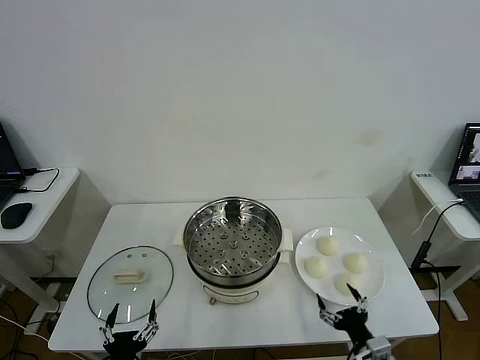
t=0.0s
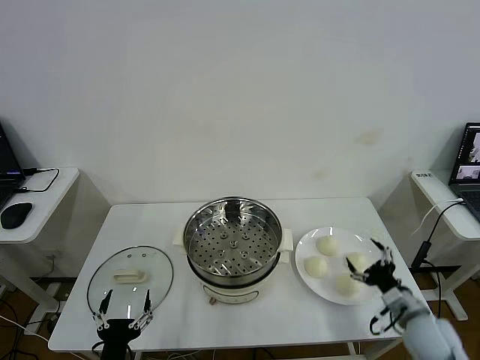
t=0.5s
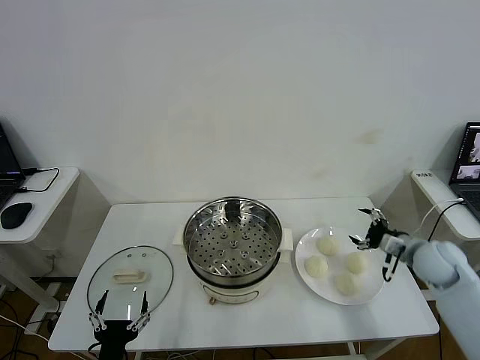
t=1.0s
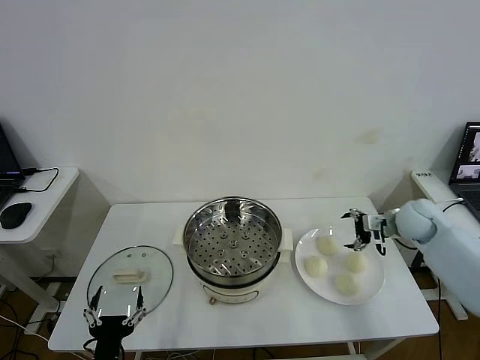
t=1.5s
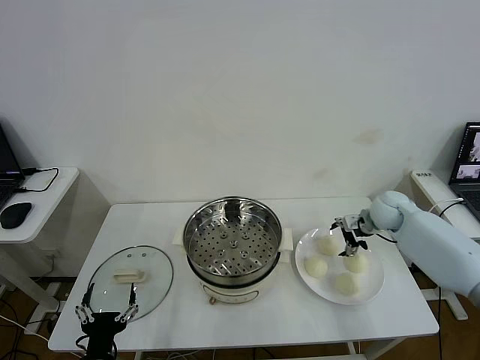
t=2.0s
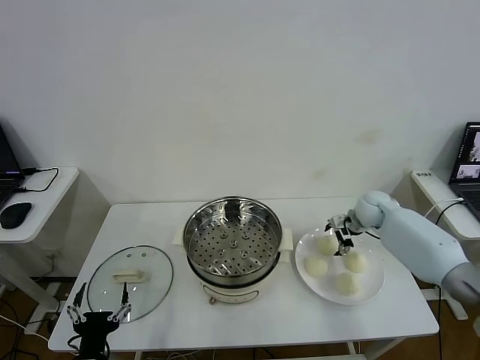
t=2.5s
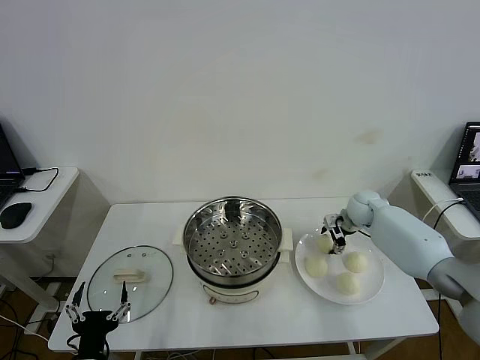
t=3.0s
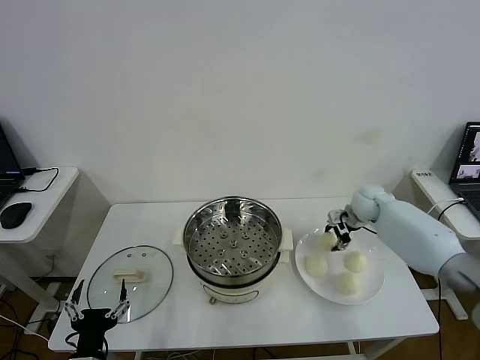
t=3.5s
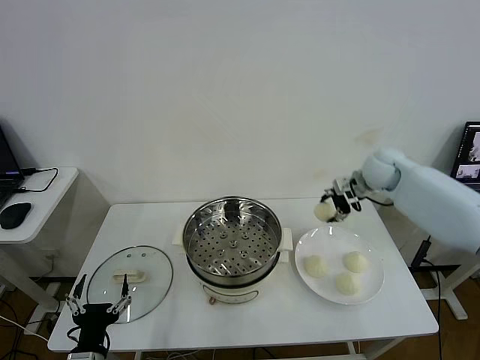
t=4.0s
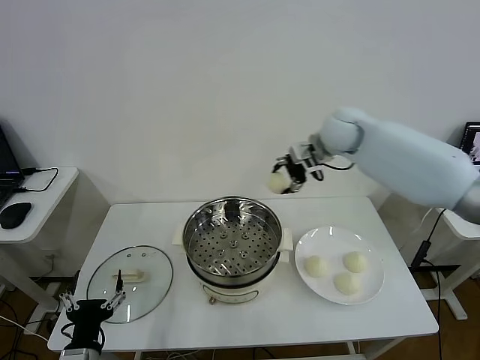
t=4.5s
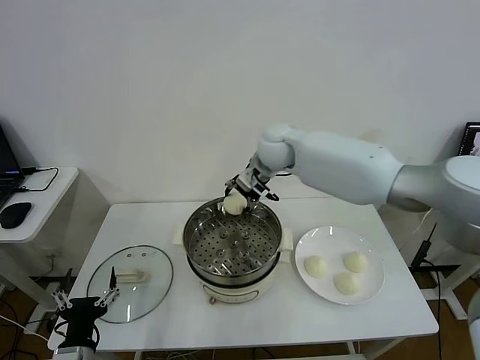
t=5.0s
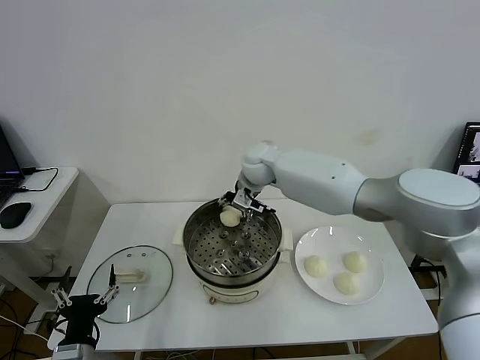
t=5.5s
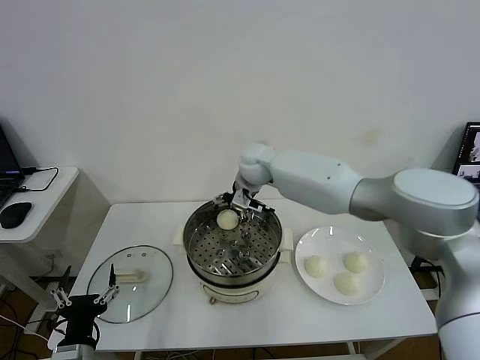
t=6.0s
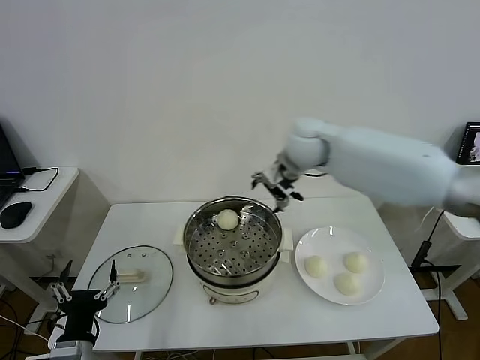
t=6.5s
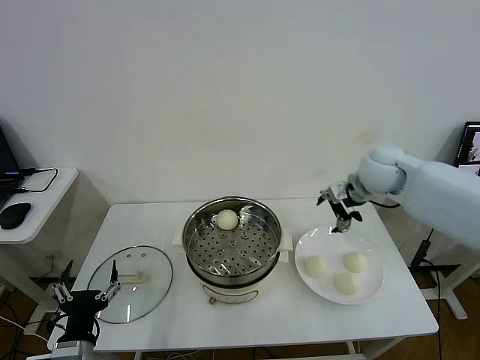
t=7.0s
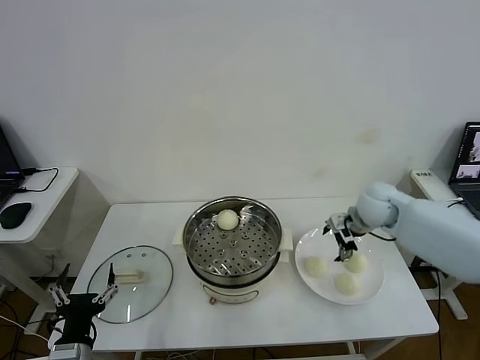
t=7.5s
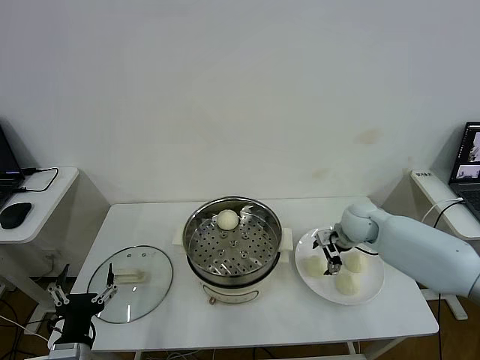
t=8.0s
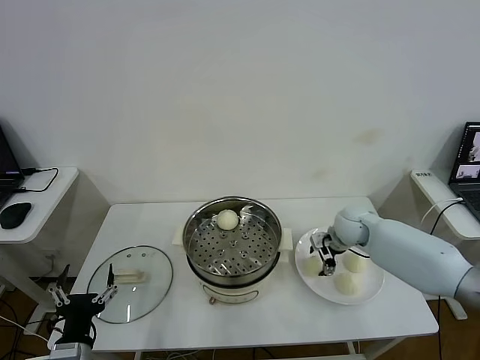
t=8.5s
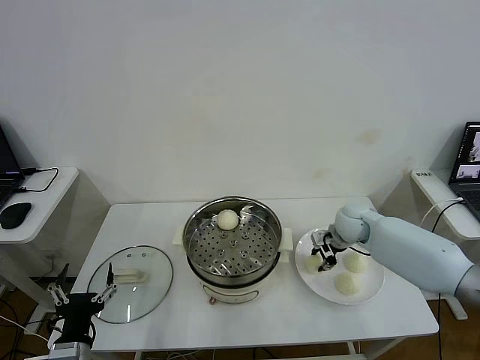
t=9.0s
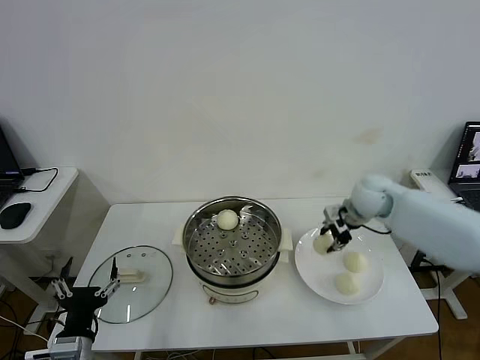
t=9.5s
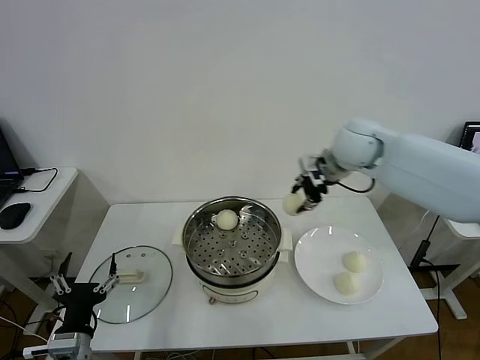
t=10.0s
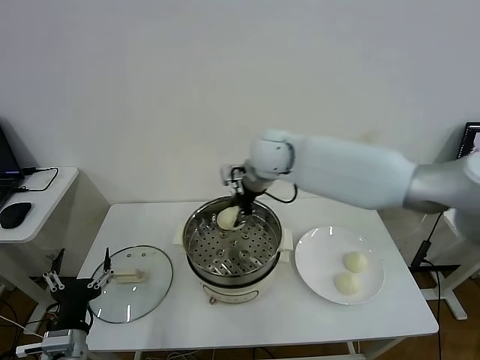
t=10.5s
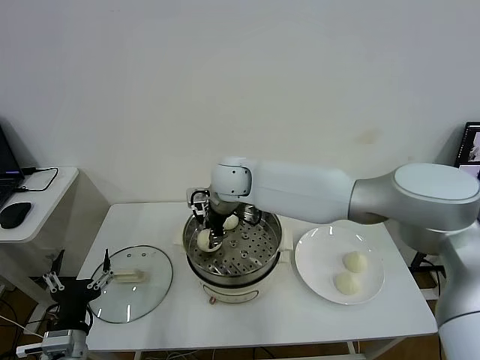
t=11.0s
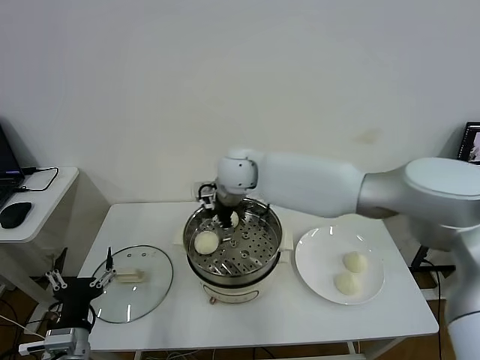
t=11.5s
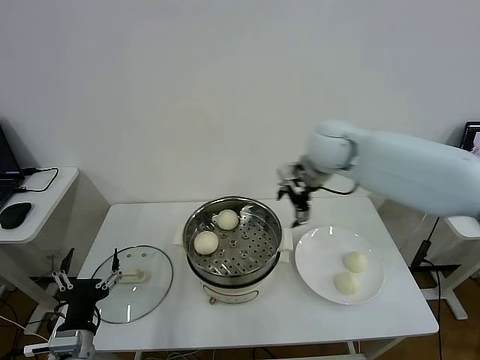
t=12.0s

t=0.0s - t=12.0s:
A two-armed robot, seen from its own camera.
Step, t=0.0s - t=3.0s: Grasp the baozi in the plate with right gripper.
Step, t=3.5s - t=5.5s: Place the baozi on the steamer with right gripper.
Step, t=6.0s - t=8.5s: Grasp the baozi in the plate with right gripper.
Step, t=9.0s - t=11.0s: Place the baozi on the steamer with right gripper.
t=2.0s - t=4.0s: The right gripper shifts about 15 cm upward, and closes up.
t=4.0s - t=6.0s: The right gripper travels to the left by about 25 cm, and opens its fingers.
t=6.0s - t=8.0s: The right gripper is displaced to the right and downward by roughly 30 cm.
t=8.0s - t=10.0s: The right gripper moves upward and to the left, approximately 25 cm, and closes.
t=10.0s - t=12.0s: The right gripper moves roughly 20 cm to the left and comes back, and opens up.

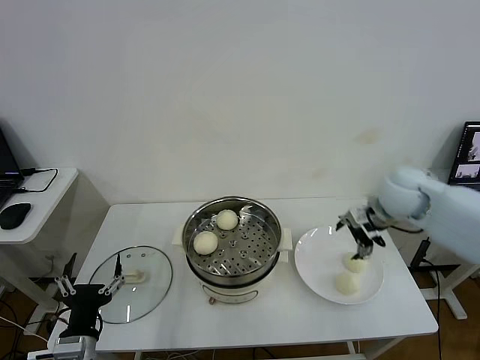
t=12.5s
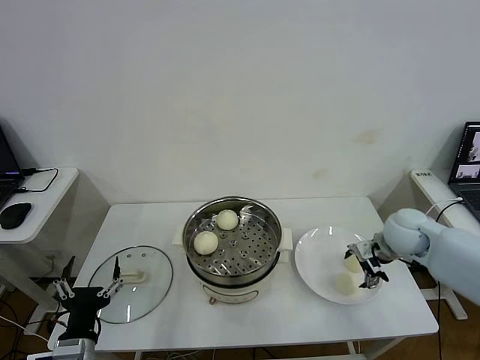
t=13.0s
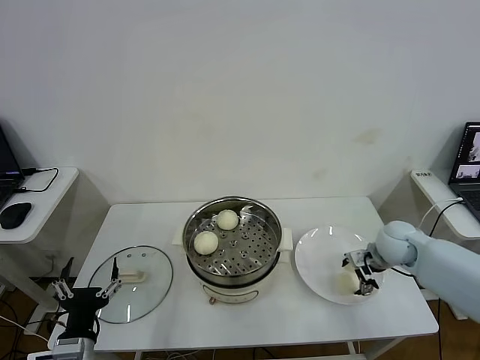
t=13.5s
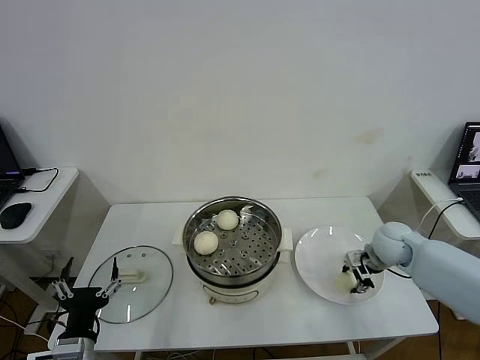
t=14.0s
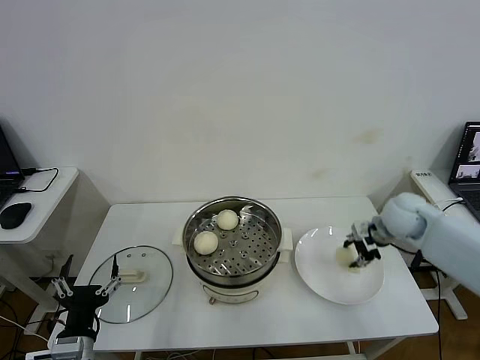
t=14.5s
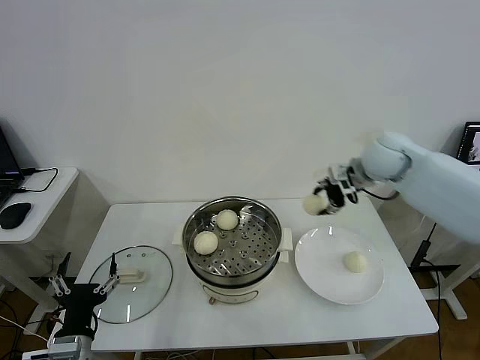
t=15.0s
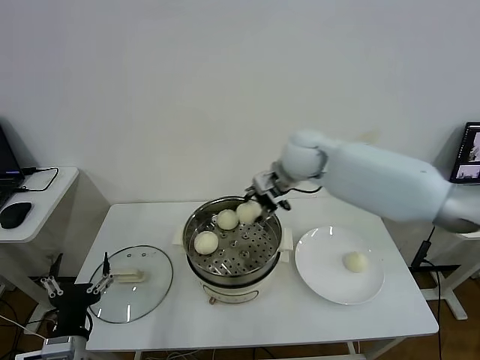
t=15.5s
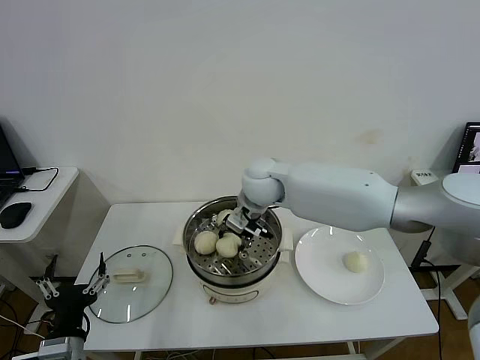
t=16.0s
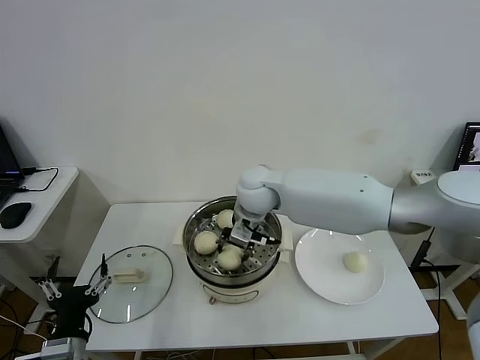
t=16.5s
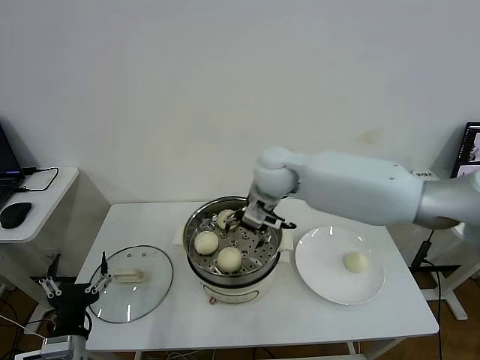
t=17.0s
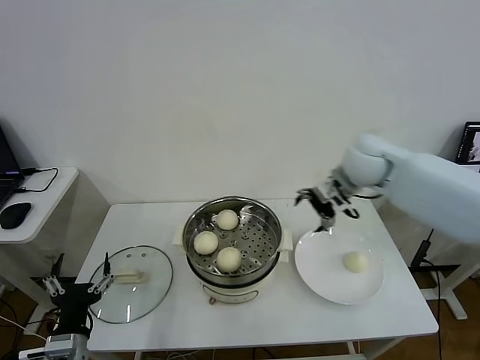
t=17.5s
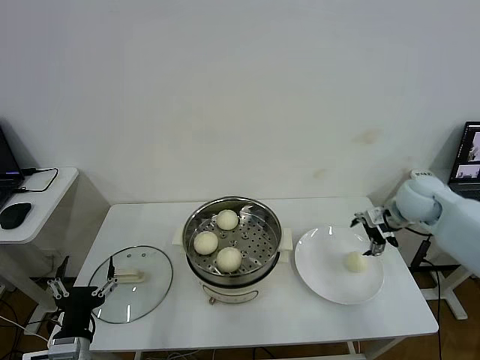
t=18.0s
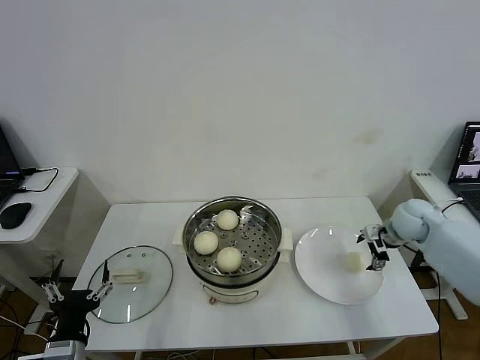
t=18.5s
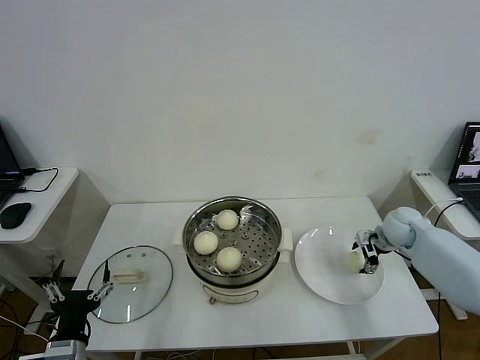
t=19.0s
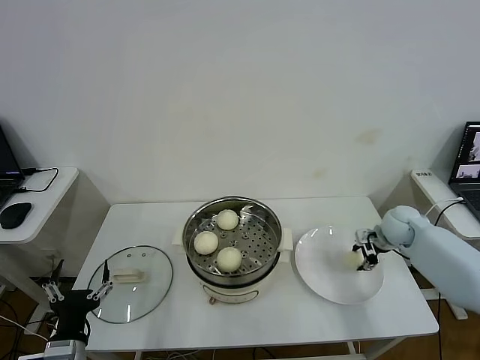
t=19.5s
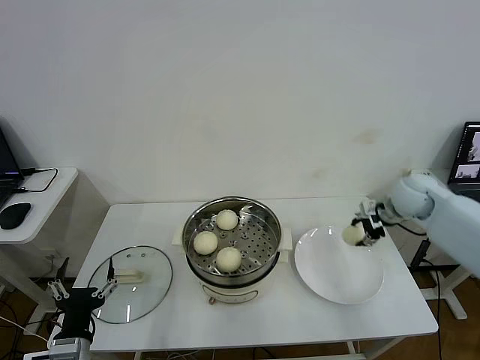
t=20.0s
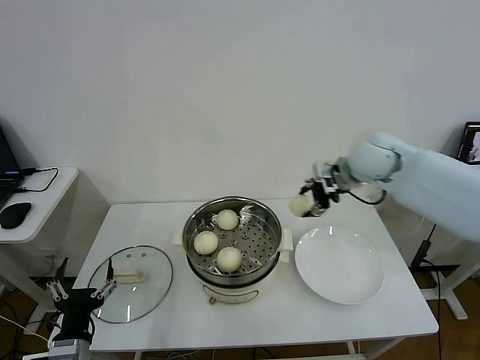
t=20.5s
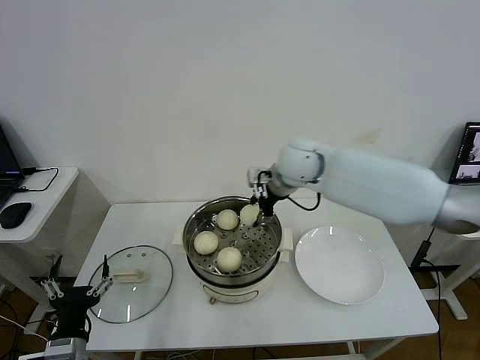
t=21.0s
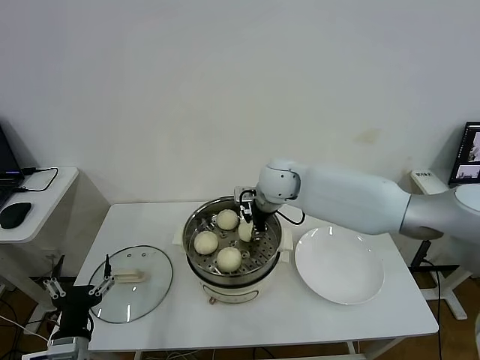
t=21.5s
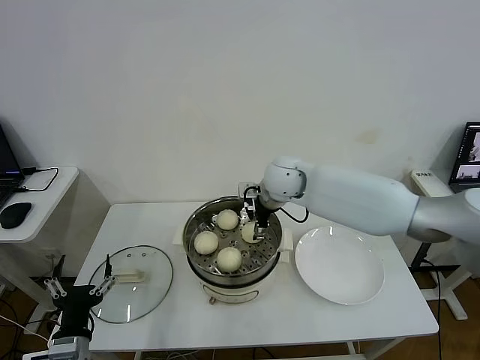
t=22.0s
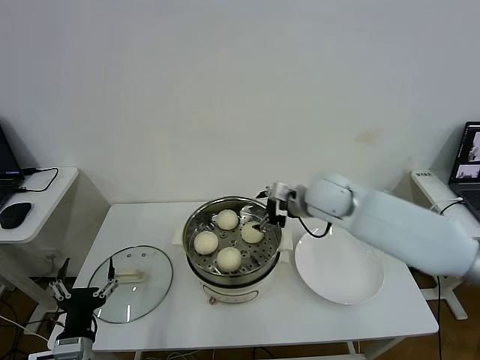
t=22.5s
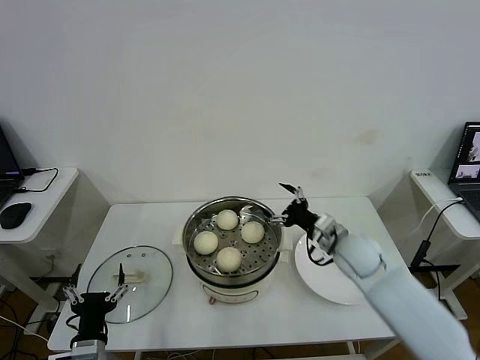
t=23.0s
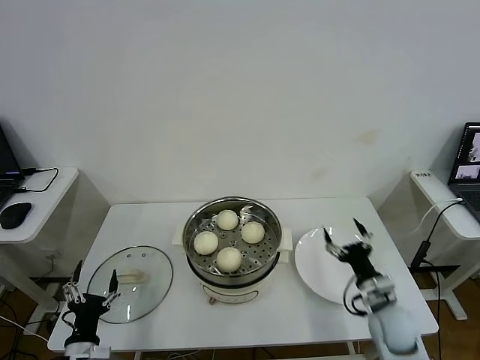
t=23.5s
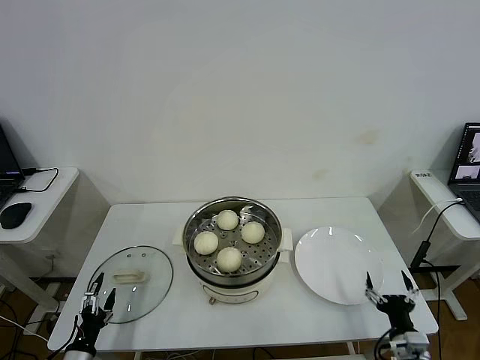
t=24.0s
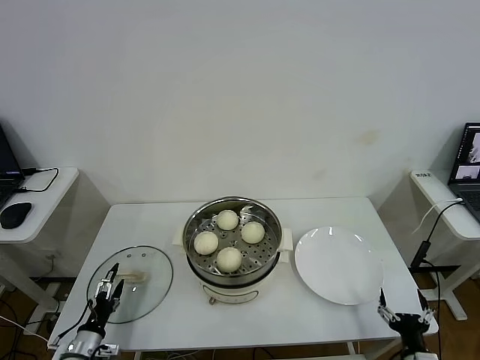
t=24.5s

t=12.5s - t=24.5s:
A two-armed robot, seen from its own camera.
Step, t=12.5s - t=14.0s: Grasp the baozi in the plate with right gripper.
Step, t=14.5s - t=16.5s: Place the baozi on the steamer with right gripper.
Step, t=17.0s - t=19.5s: Grasp the baozi in the plate with right gripper.
Step, t=20.0s - t=21.5s: Place the baozi on the steamer with right gripper.
t=12.5s - t=14.5s: The right gripper closes its fingers.
t=14.5s - t=16.5s: The right gripper heads to the left, covering roughly 35 cm.
t=16.5s - t=18.5s: The right gripper shifts approximately 40 cm to the right, and opens up.
t=18.5s - t=20.5s: The right gripper moves upward and to the left, about 25 cm, and closes up.
t=20.5s - t=22.5s: The right gripper travels downward and to the left by about 10 cm, and opens its fingers.
t=22.5s - t=24.5s: The left gripper travels downward and to the left by approximately 20 cm. Meanwhile the right gripper is displaced backward, downward and to the right by approximately 50 cm.

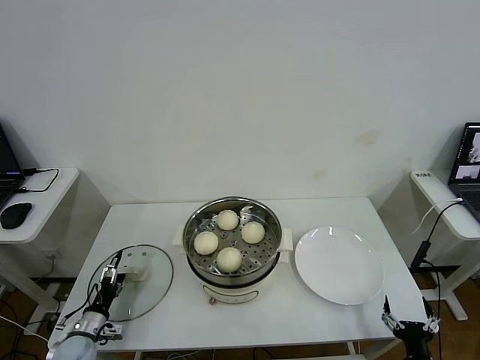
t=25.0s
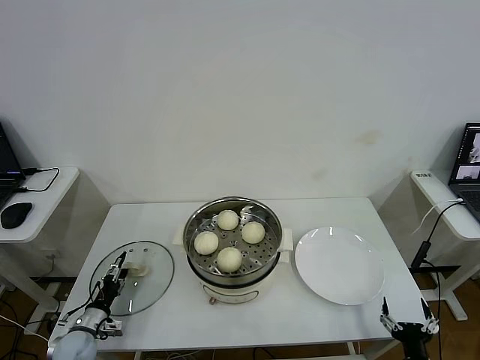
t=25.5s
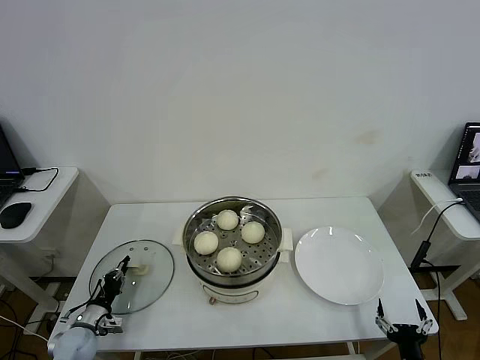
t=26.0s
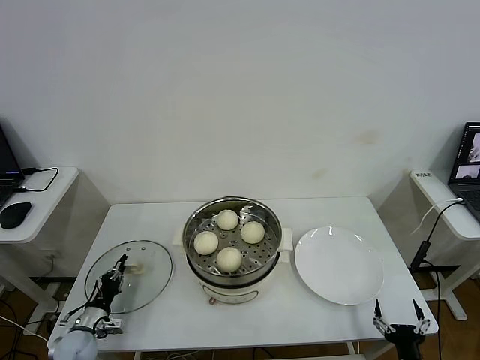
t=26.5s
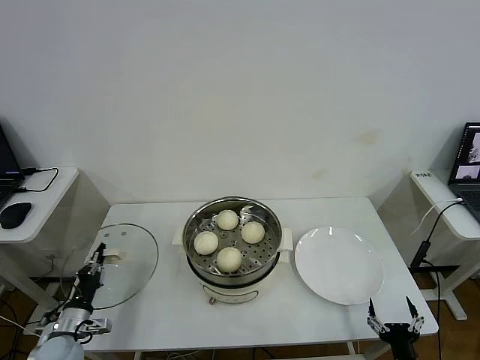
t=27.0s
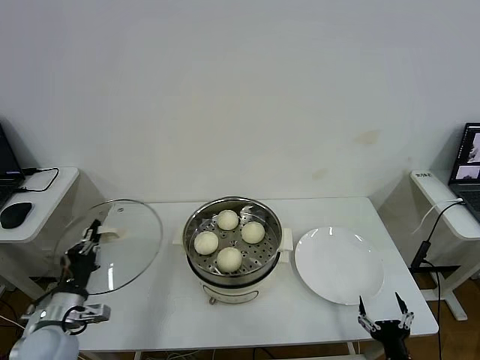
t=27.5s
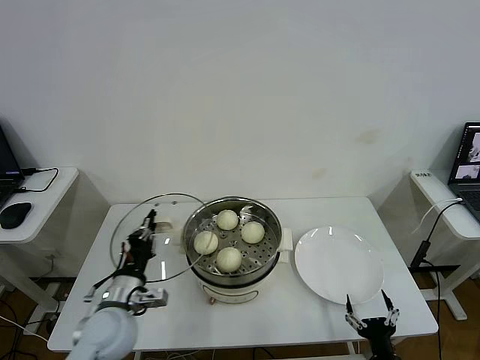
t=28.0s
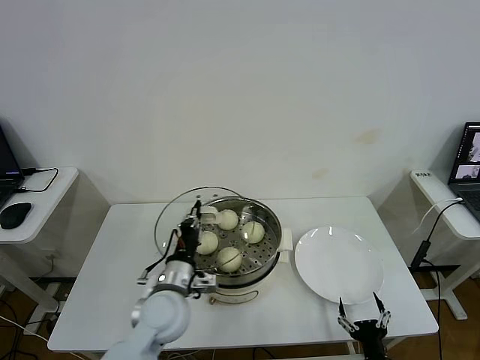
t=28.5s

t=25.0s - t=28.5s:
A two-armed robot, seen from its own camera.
t=25.0s - t=27.0s: The left gripper is displaced upward by about 5 cm, and closes its fingers.
t=27.0s - t=28.5s: The right gripper changes place by some 5 cm. Meanwhile the left gripper shifts about 30 cm to the right and upward.
